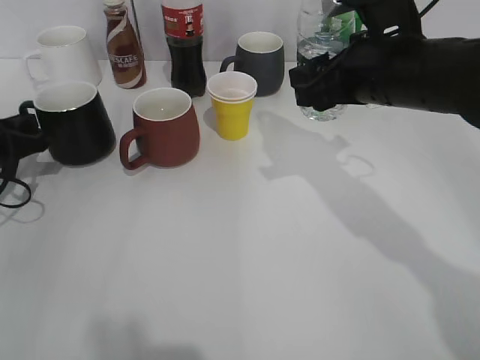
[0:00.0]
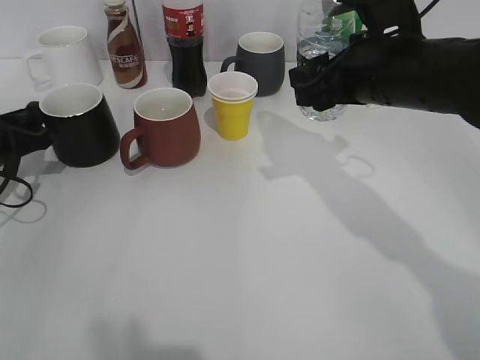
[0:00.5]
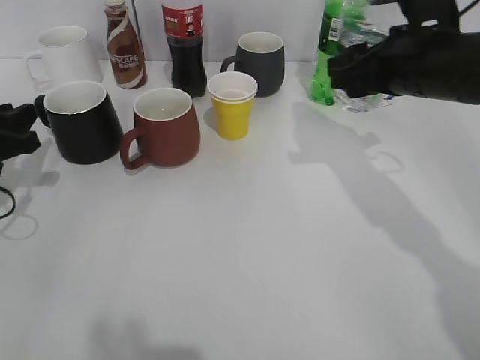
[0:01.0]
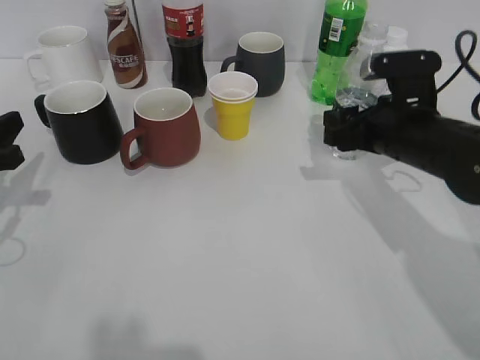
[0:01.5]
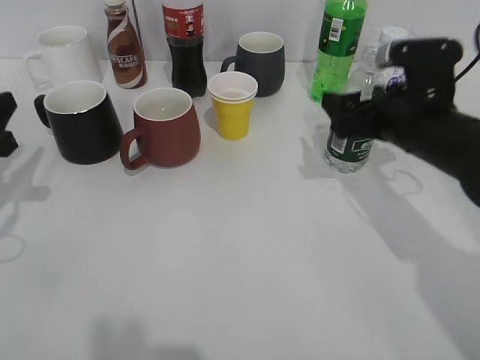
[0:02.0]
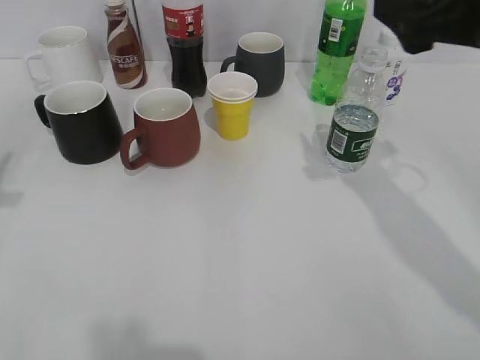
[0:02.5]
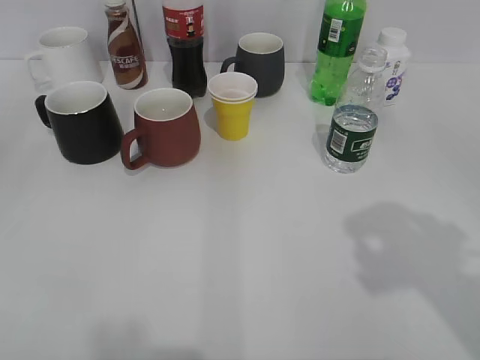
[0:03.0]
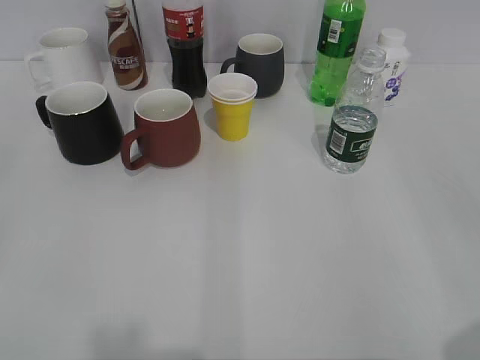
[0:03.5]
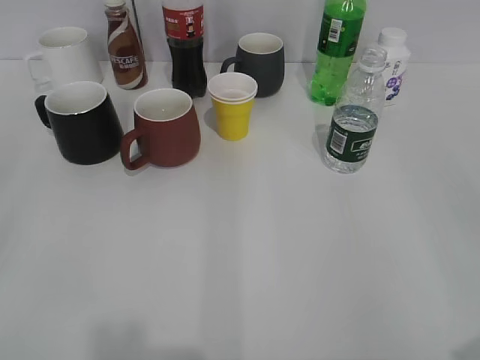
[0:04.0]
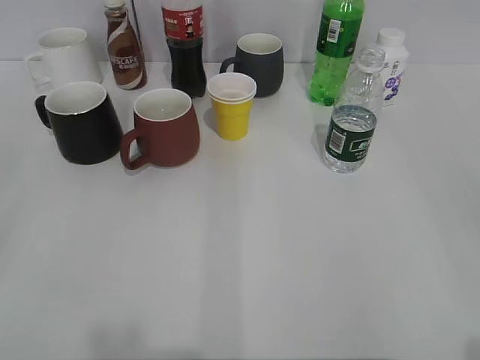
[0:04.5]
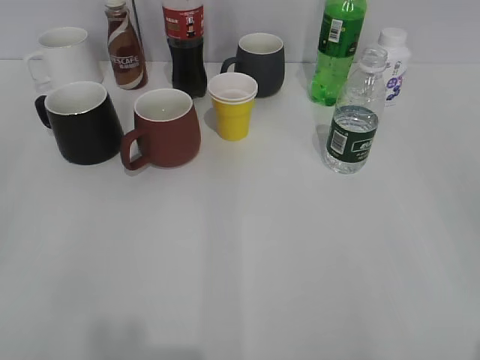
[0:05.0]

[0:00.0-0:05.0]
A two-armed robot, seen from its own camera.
Step, 0:01.0 to 0:02.0: Place the water bottle on the table with right gripper.
0:00.0 to 0:02.5: The left gripper goes some 20 cm upward and backward, and opens up, while the right gripper travels upward and to the right by roughly 10 cm, and opens its fingers.
0:02.5 to 0:05.0: The two grippers go roughly 25 cm backward. The left gripper opens up. Meanwhile the right gripper closes its fingers.

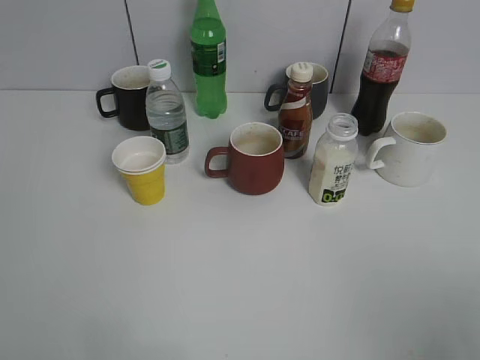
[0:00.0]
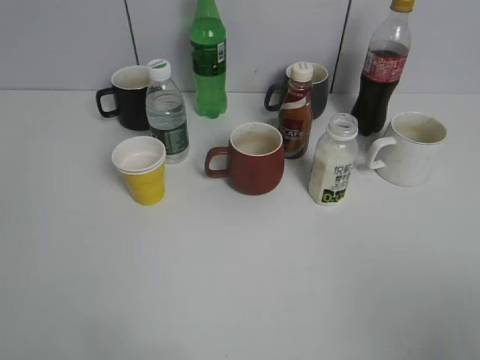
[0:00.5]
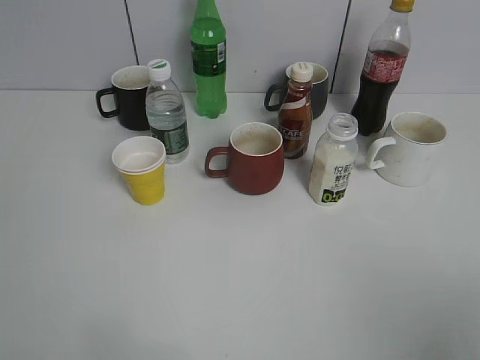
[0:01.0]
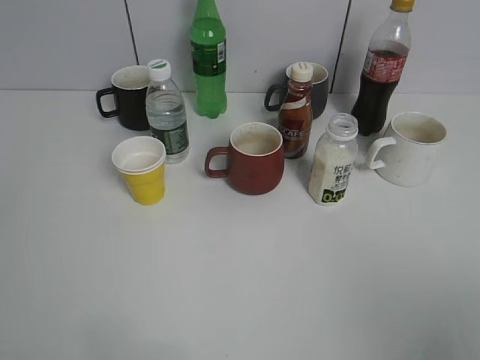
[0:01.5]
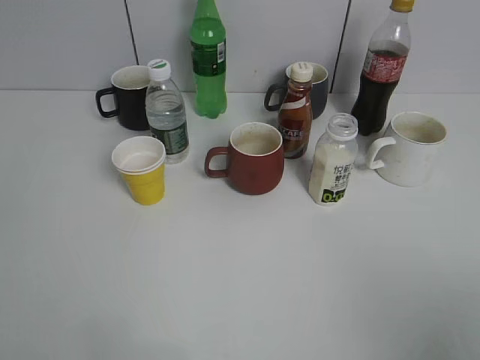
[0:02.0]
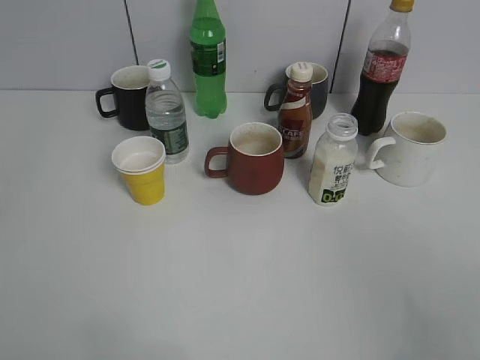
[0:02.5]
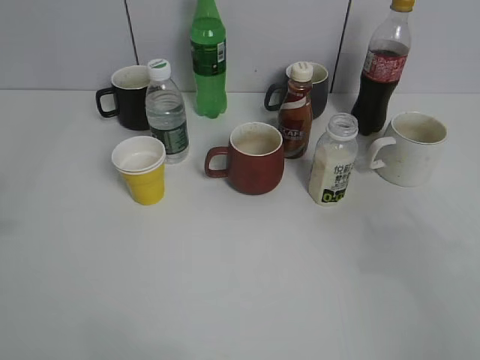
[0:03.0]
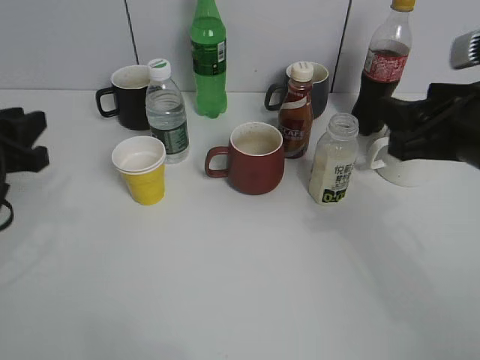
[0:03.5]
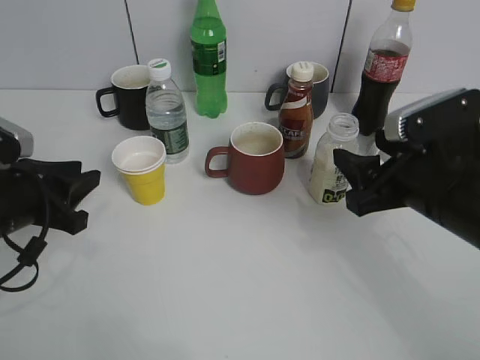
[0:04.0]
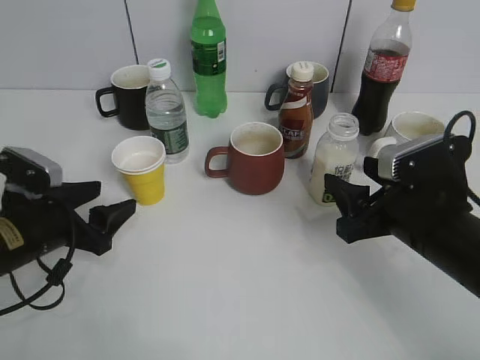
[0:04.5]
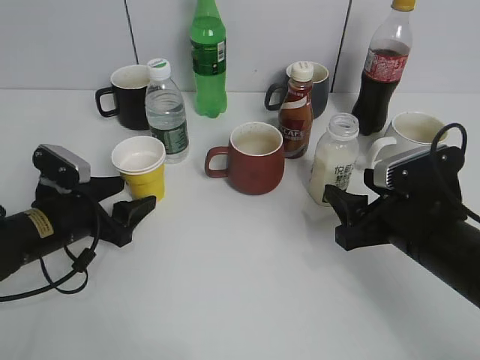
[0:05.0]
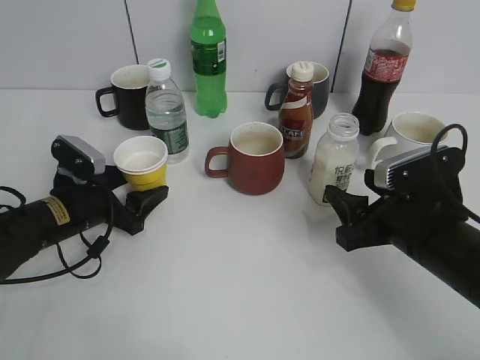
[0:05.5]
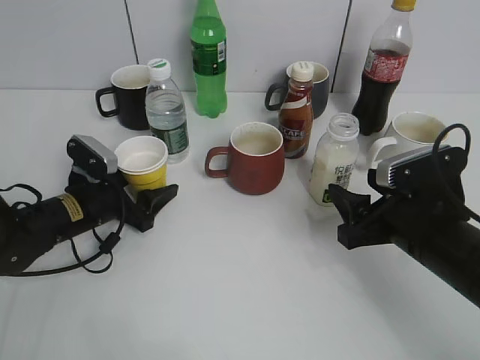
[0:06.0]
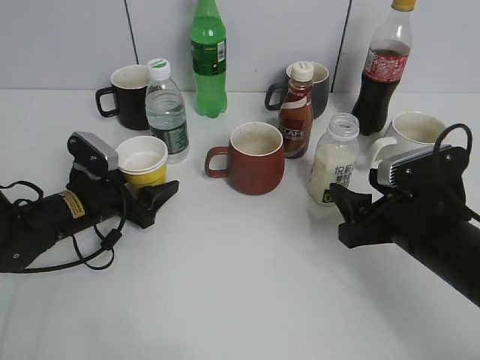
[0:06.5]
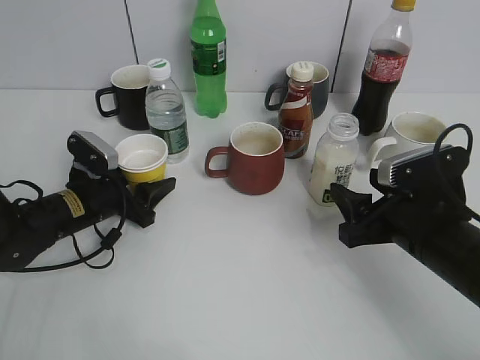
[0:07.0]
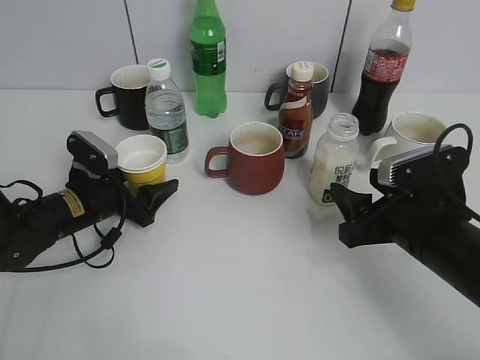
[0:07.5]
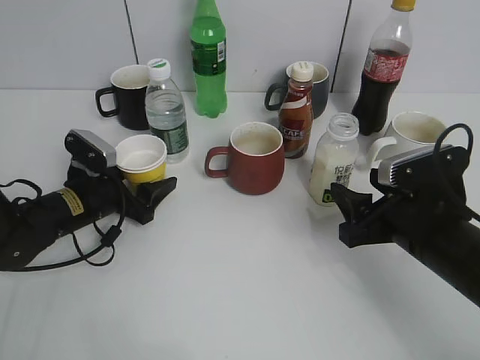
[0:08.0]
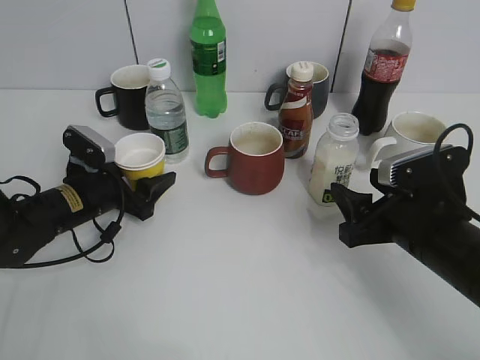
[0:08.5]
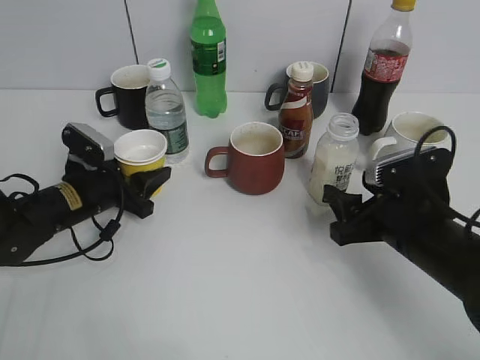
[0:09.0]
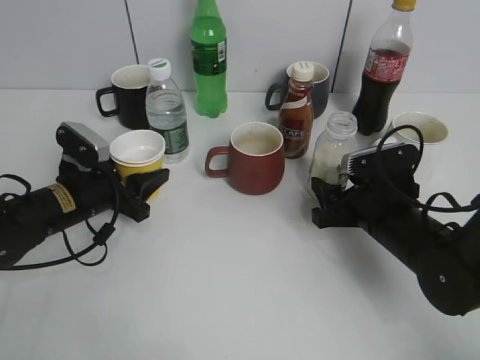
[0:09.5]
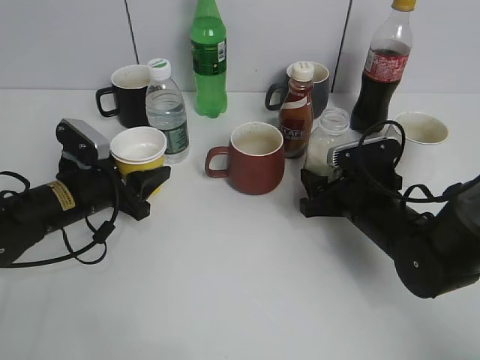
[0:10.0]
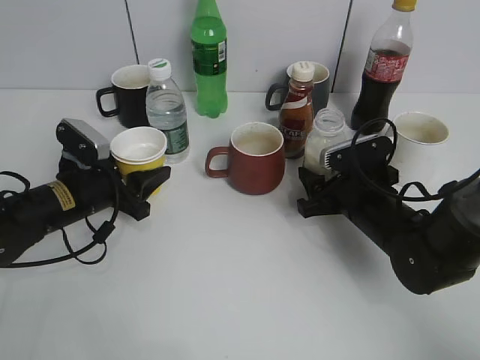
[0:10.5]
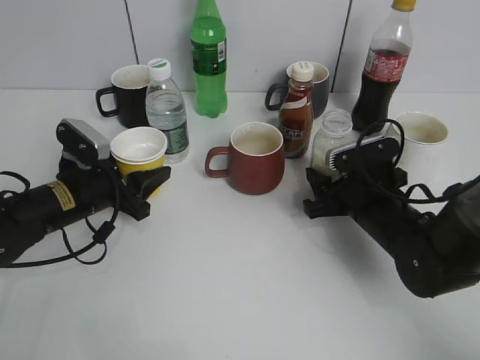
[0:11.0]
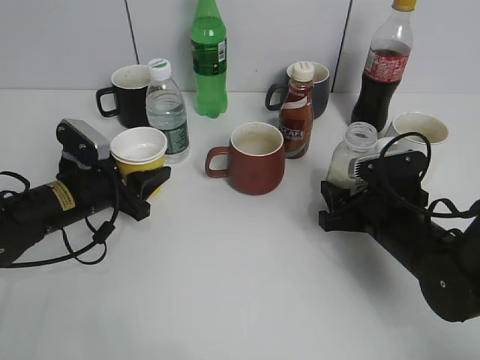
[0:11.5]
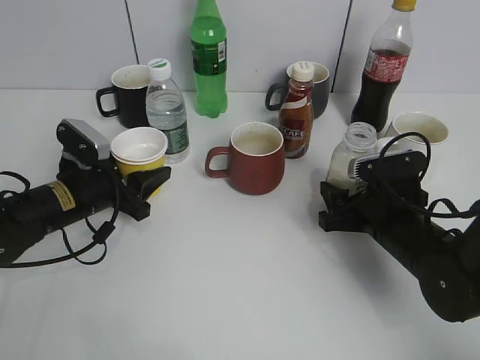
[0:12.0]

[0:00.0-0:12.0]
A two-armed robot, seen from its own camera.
Step, 0:03.5 to 0:08.5: Grasp the yellow paper cup with left gripper.
Step, 0:09.0 to 0:09.5: Lift the yellow paper cup with left gripper.
0:02.0 to 0:04.0: The left gripper travels forward and downward by some 30 cm, while the right gripper goes some 30 cm forward, downward and to the left.
0:04.0 to 0:06.0: The right gripper is displaced downward by about 5 cm. Meanwhile the left gripper moves downward and forward, some 15 cm, and opens up.
0:06.0 to 0:08.0: Both grippers stay put.
0:08.0 to 0:10.0: The left gripper closes its fingers. The right gripper travels forward and downward by some 10 cm.
0:10.0 to 0:12.0: There are only small adjustments of the grippers.

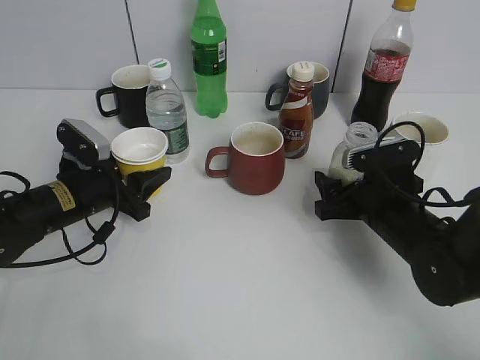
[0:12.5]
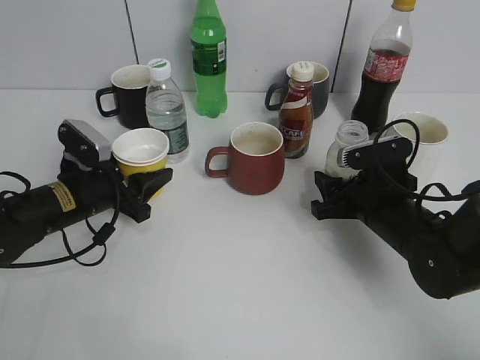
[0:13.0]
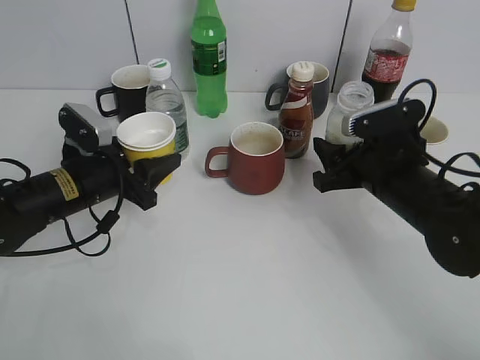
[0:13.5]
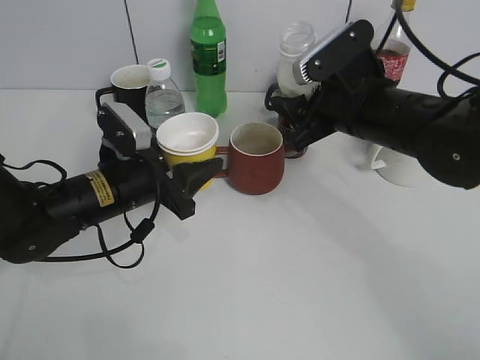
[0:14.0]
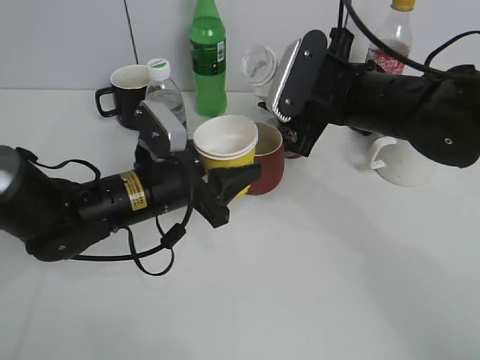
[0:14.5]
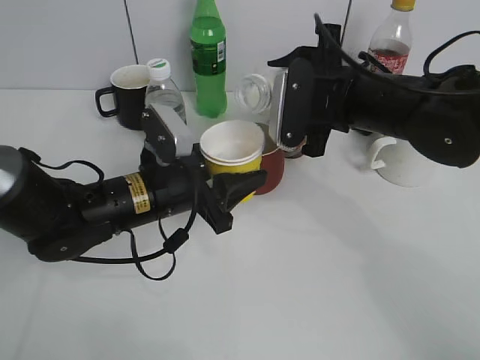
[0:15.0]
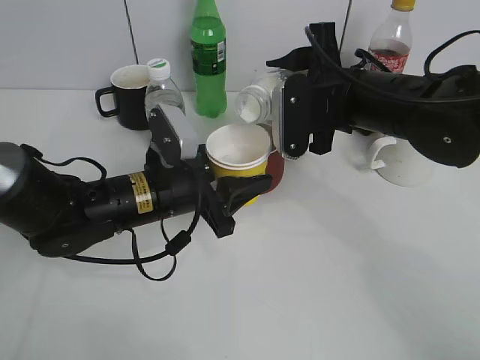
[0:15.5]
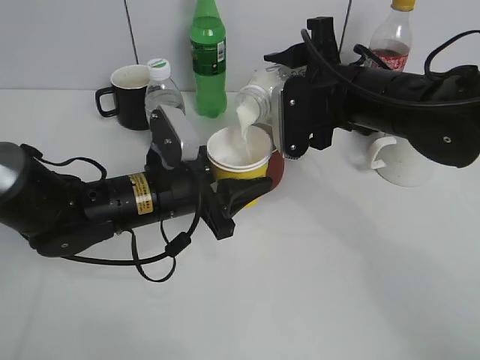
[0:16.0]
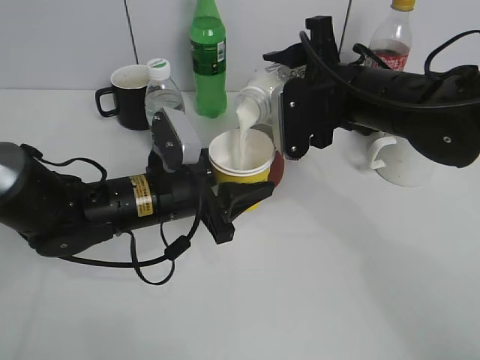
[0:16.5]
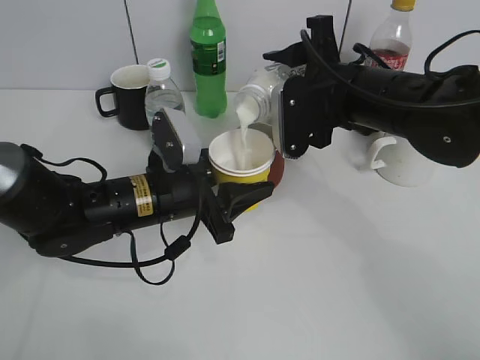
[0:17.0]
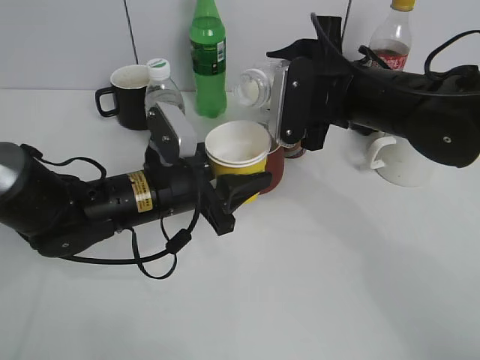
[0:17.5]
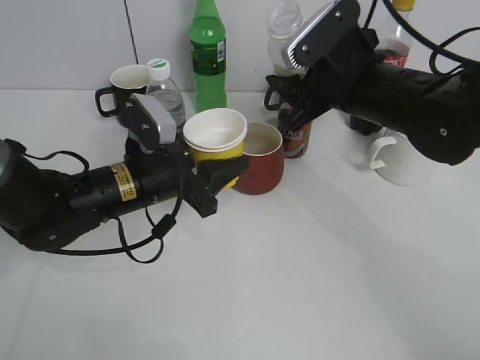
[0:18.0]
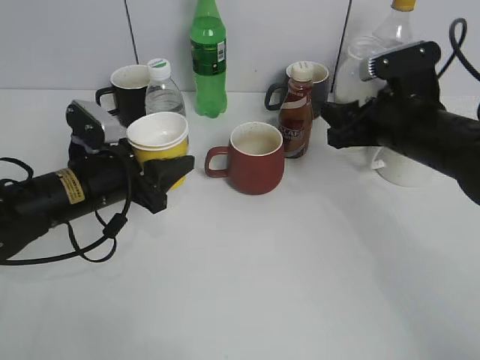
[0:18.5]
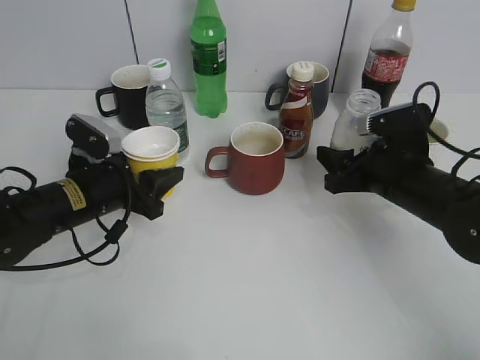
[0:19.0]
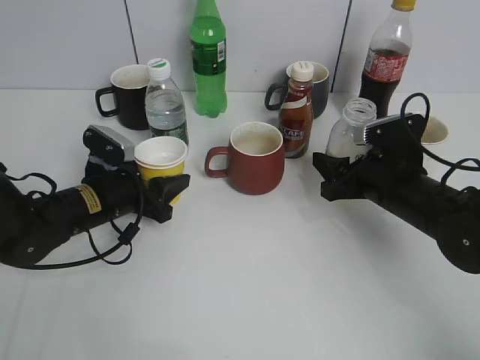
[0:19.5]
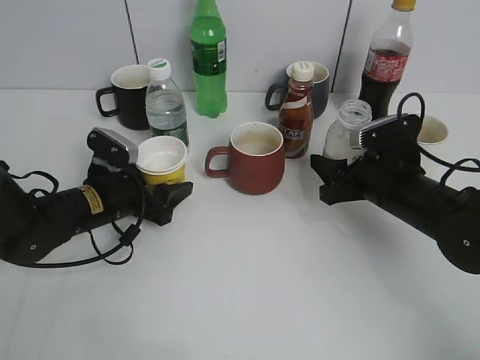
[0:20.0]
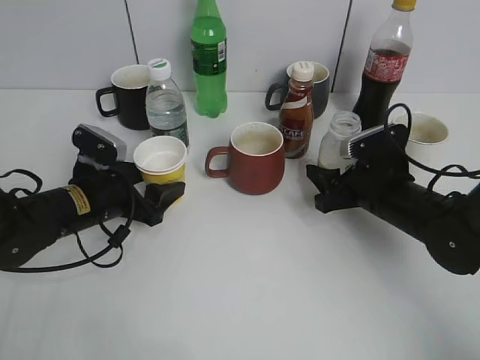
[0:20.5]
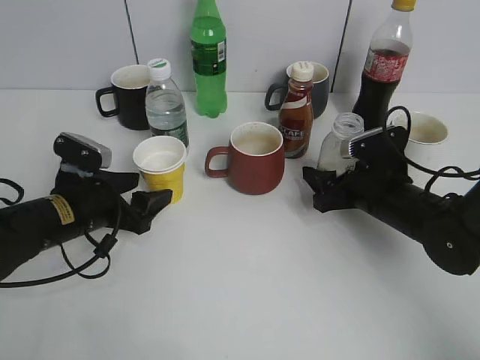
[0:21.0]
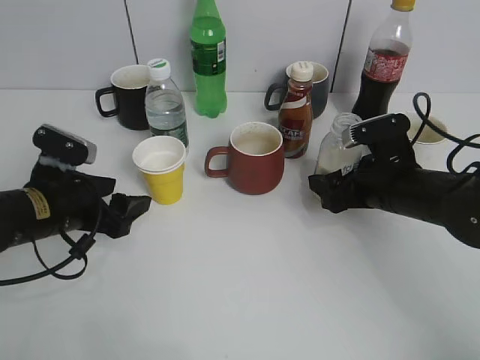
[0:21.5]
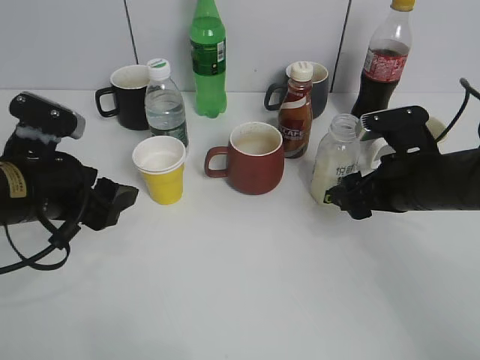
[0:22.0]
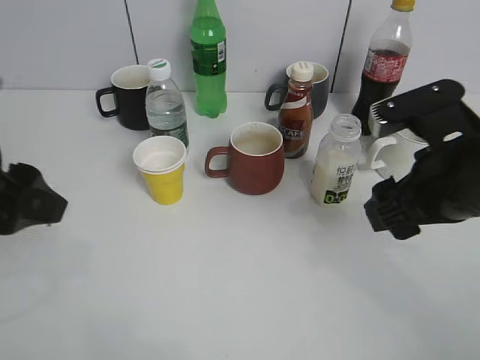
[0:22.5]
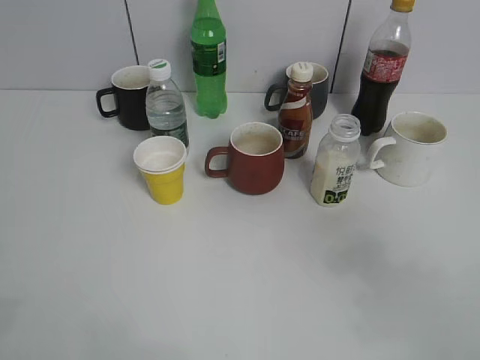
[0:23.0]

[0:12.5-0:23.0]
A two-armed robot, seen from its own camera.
Step, 0:13.5 to 0:17.5: Pour the yuexian Milk from bottle to cup with right gripper.
Step, 0:18.0 to 0:22.0: Place the yuexian Milk bottle on the table with right gripper.
0:12.5 to 0:14.5: The right gripper goes approximately 15 cm upward and to the left, and closes; the left gripper shifts about 10 cm to the right.
0:16.5 to 0:19.0: The right gripper is displaced downward and to the right by roughly 15 cm; the left gripper heads to the left, covering some 10 cm.
0:19.0 to 0:21.0: The right gripper opens its fingers; the left gripper opens up.
0:21.0 to 0:23.0: The grippers both shift upward and backward by about 30 cm. The right gripper closes up.
